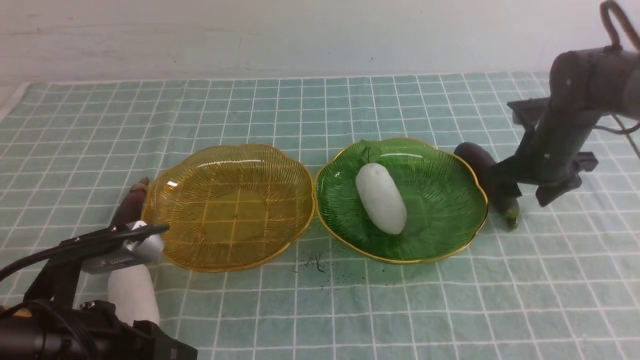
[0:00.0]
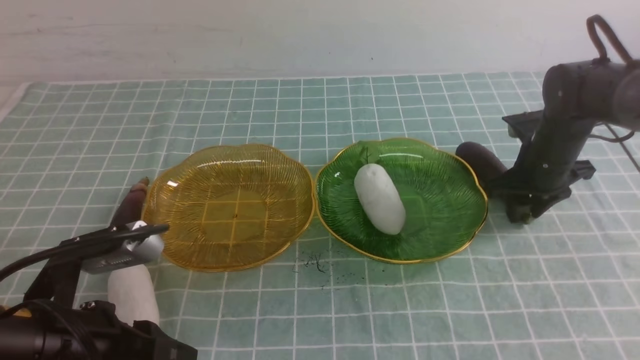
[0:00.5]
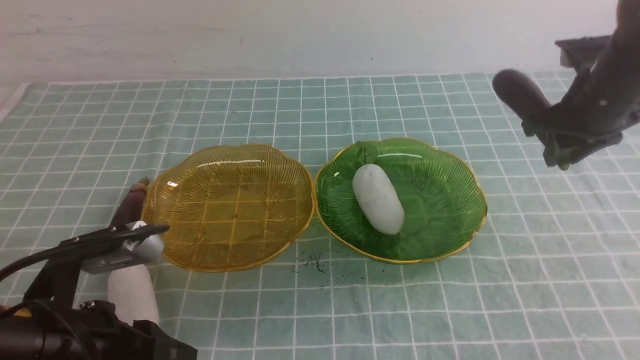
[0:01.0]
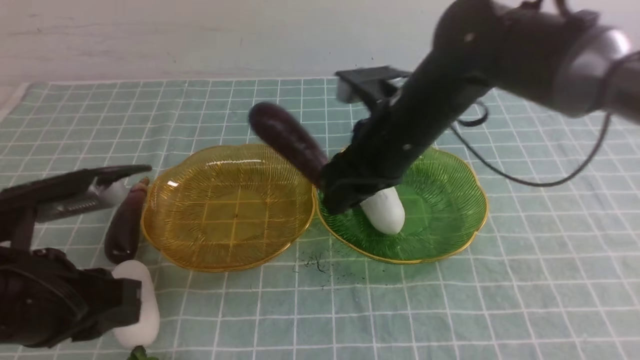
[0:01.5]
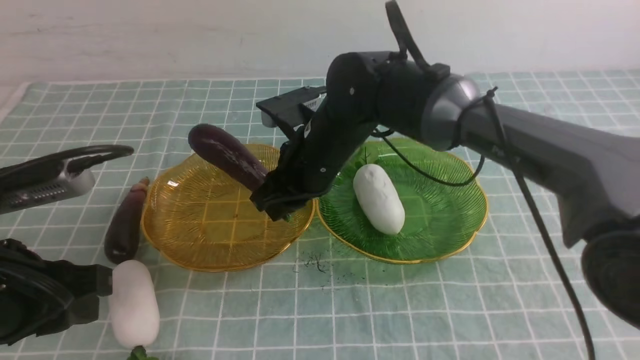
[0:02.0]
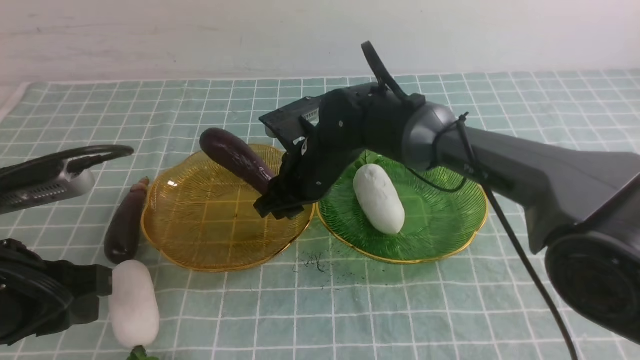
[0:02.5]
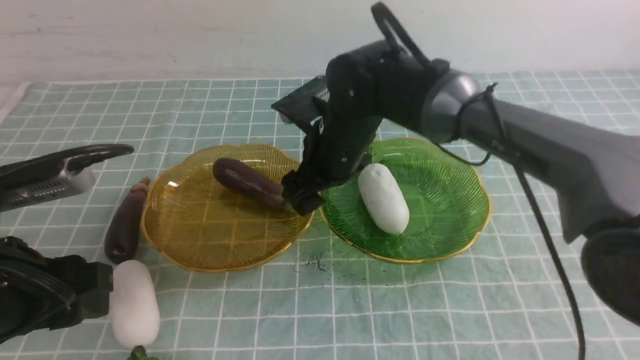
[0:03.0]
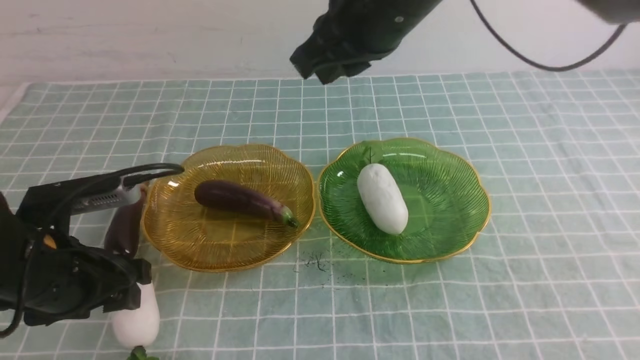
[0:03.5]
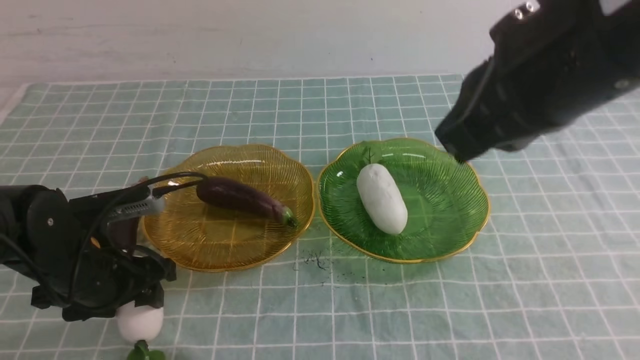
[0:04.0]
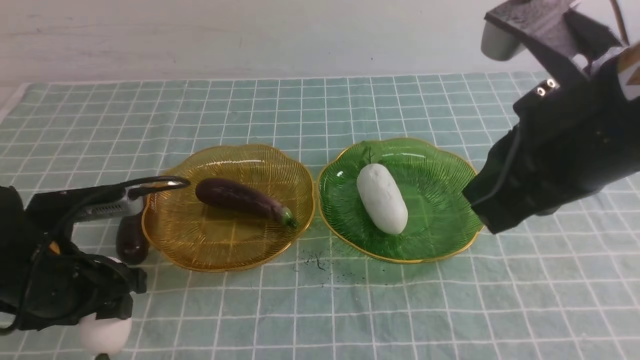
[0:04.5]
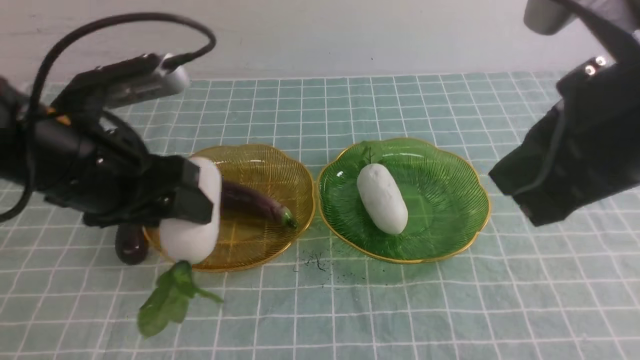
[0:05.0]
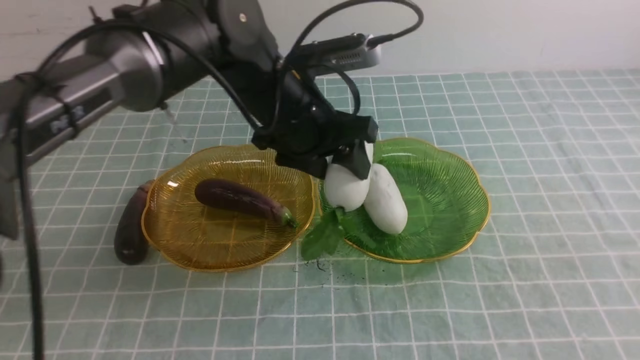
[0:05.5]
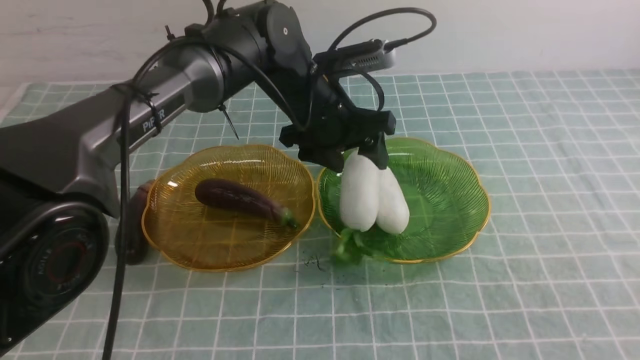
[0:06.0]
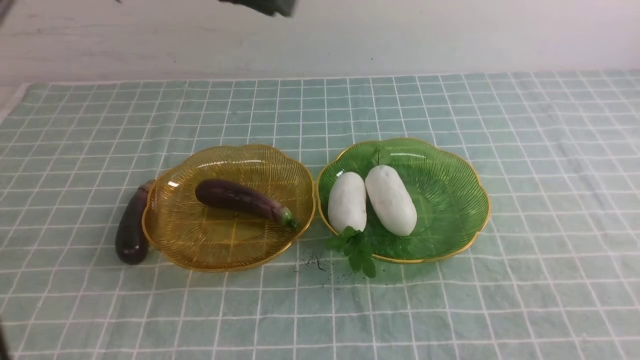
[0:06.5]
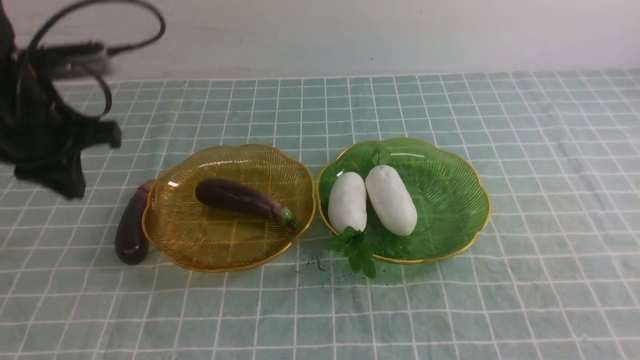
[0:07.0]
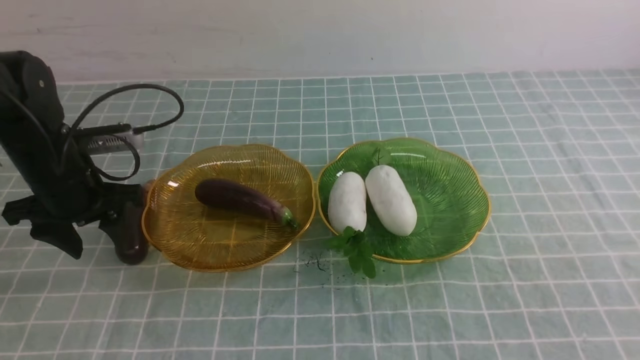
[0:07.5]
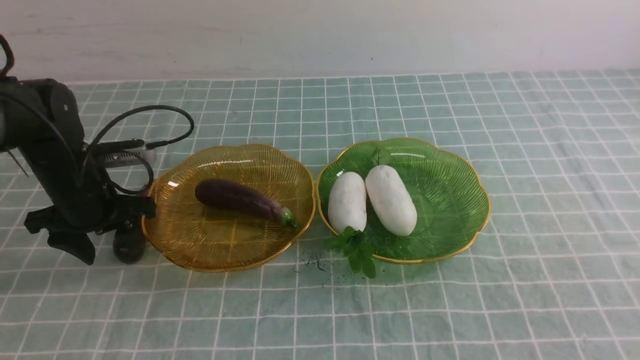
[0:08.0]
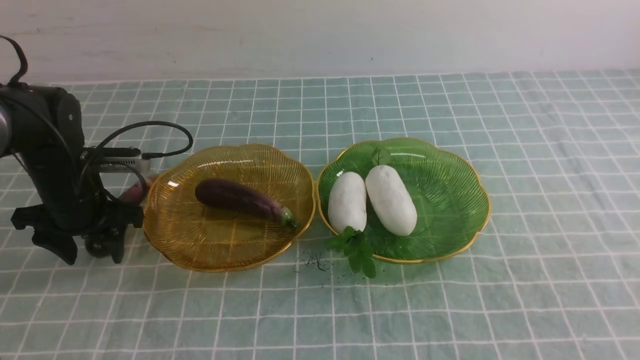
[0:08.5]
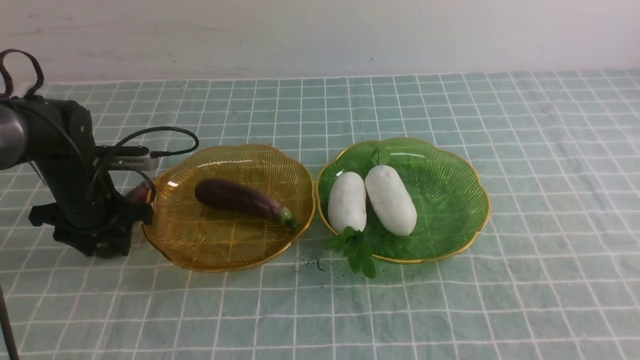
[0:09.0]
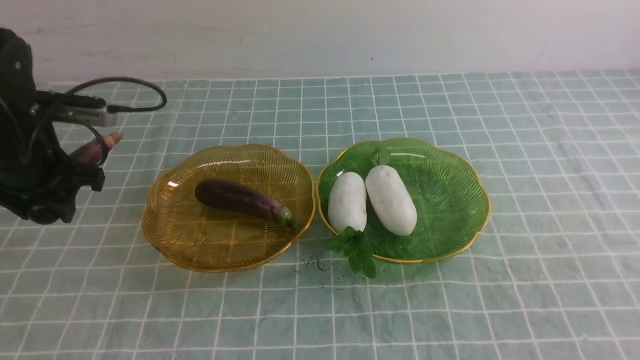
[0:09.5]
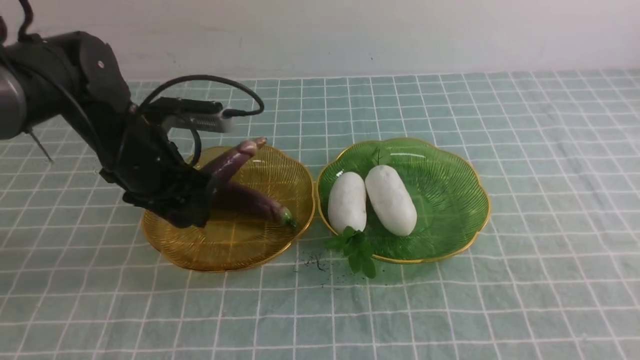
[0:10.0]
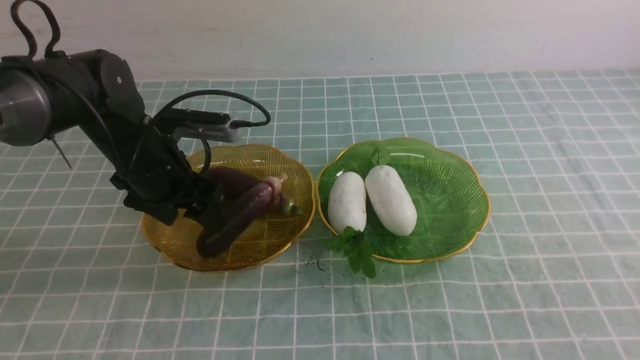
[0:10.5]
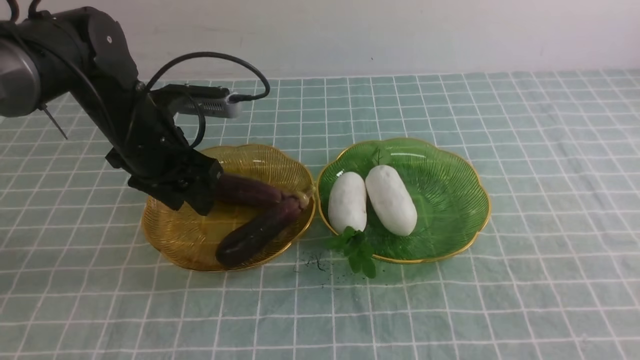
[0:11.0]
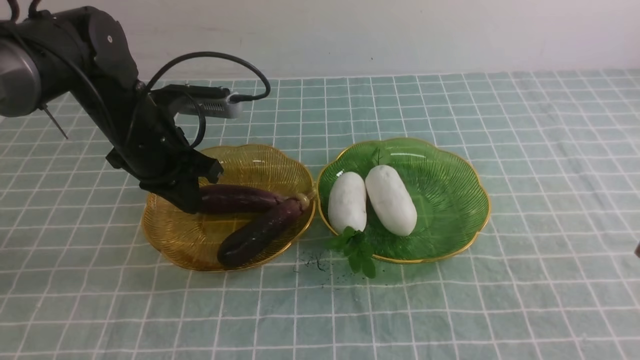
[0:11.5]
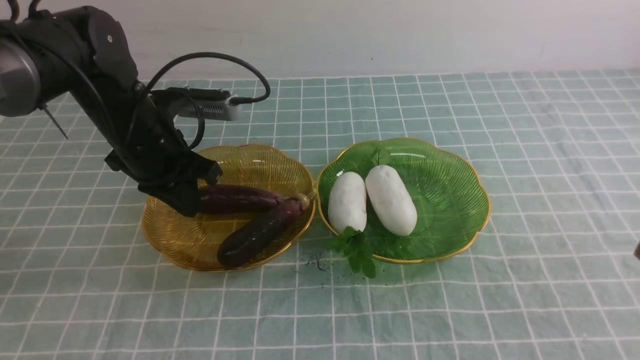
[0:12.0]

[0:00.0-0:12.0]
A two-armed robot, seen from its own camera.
Step, 0:00.0 to 0:02.5: use the right arm to grab an eggplant and put it into the left plate.
Step, 0:03.5 to 0:06.0: use the left arm to grab a radish and put it into the right plate.
Step, 0:06.5 to 0:10.5: use the left arm to grab an eggplant and put it into the left plate.
0:00.0 to 0:02.0: The right gripper goes some 30 cm to the left, and closes up, while the left gripper is displaced upward by roughly 5 cm.
0:02.0 to 0:04.0: The right gripper heads upward, backward and to the right, covering about 30 cm, and closes its fingers. Meanwhile the left gripper travels downward and forward by approximately 15 cm, and opens up.
0:04.0 to 0:06.0: The left gripper moves to the right, forward and upward, some 30 cm; the right gripper heads backward and to the right, covering approximately 20 cm.
0:06.0 to 0:08.0: The left gripper travels to the left by some 25 cm, and closes and opens again.
0:08.0 to 0:10.0: The left gripper heads to the right and upward, covering some 10 cm.
0:10.0 to 0:12.0: The right gripper is displaced downward by roughly 5 cm; the left gripper closes its fingers.

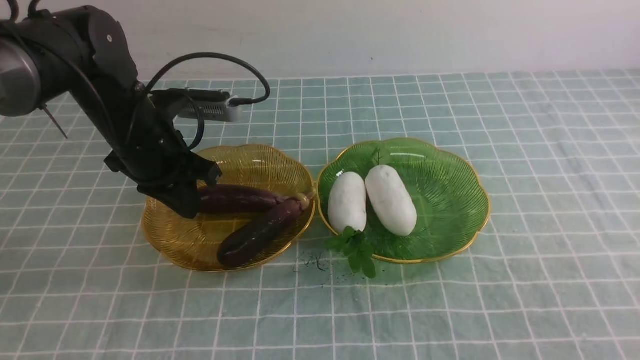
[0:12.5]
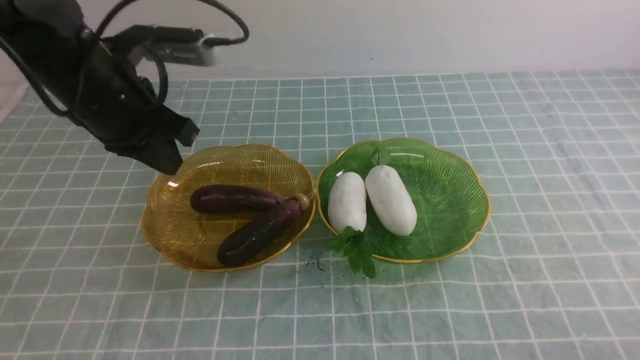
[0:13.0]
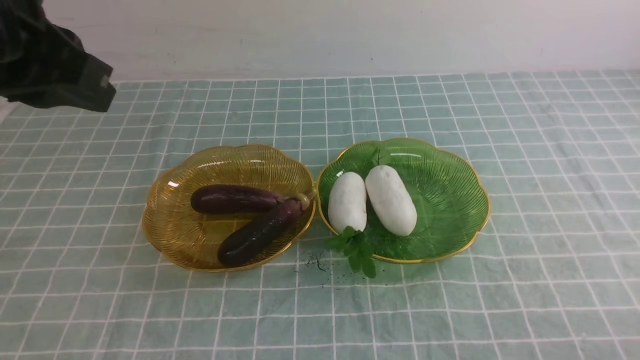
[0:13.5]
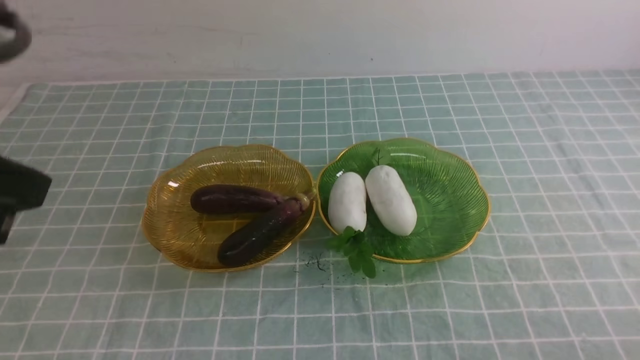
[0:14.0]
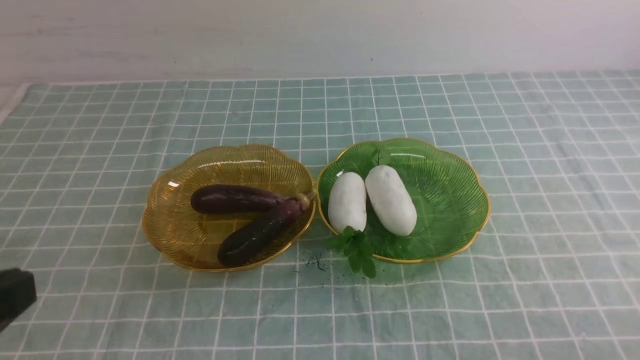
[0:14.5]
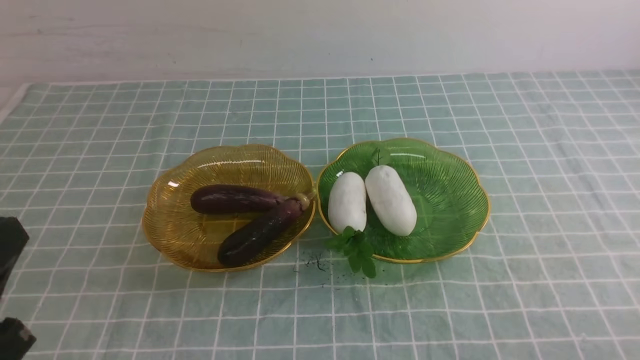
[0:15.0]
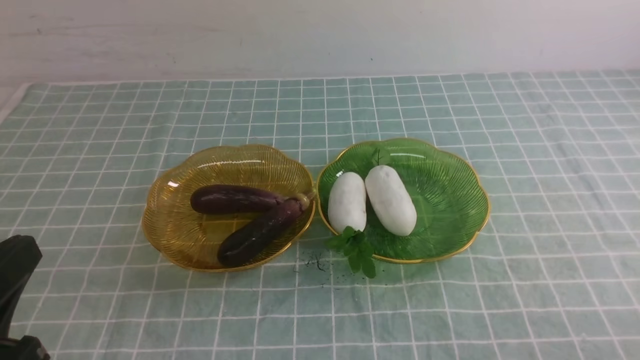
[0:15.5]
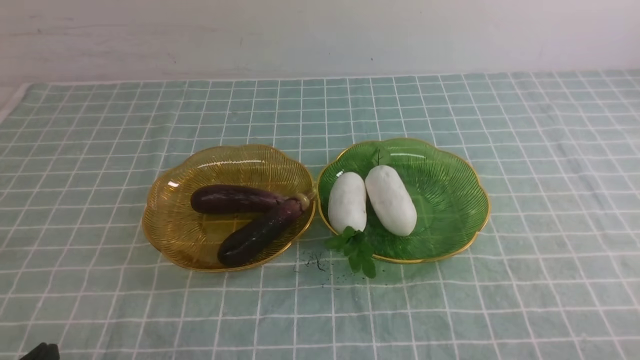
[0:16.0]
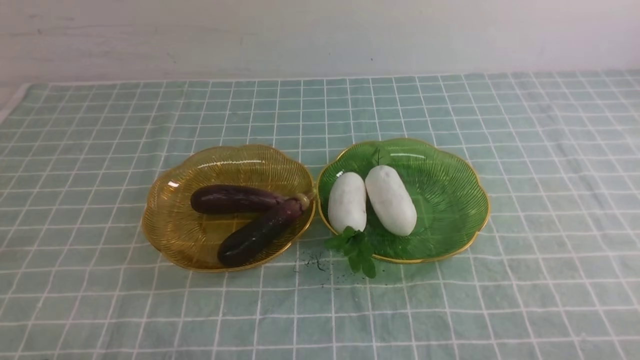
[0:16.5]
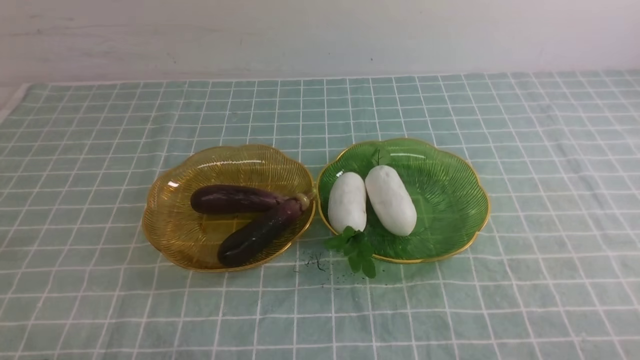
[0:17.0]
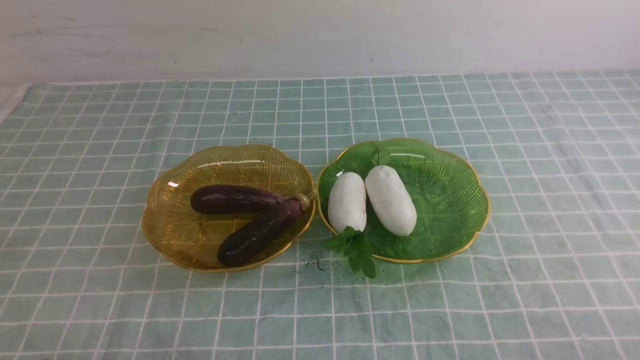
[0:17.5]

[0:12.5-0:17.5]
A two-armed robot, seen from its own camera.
0:12.5 to 0:15.0: The right gripper moves downward, roughly 5 cm, while the left gripper moves backward, some 30 cm.
0:15.0 to 0:17.5: The left gripper heads downward, covering about 15 cm.
